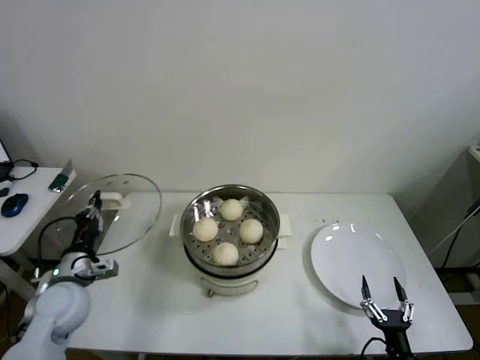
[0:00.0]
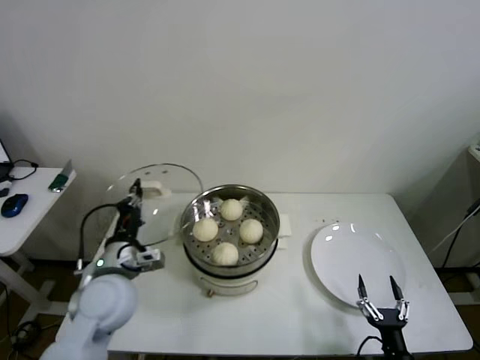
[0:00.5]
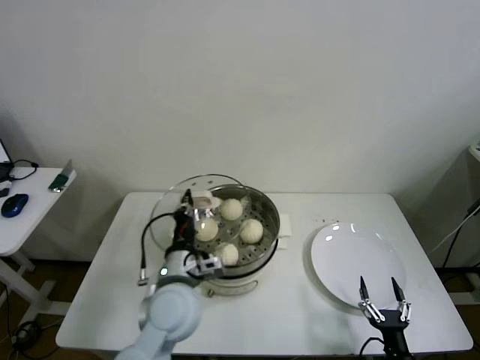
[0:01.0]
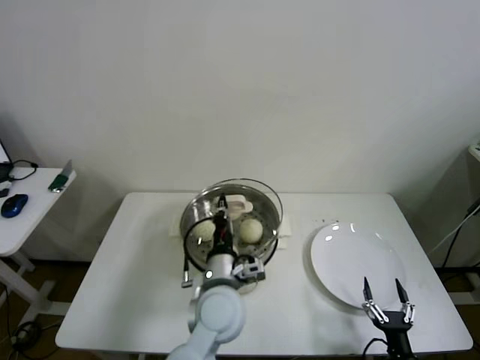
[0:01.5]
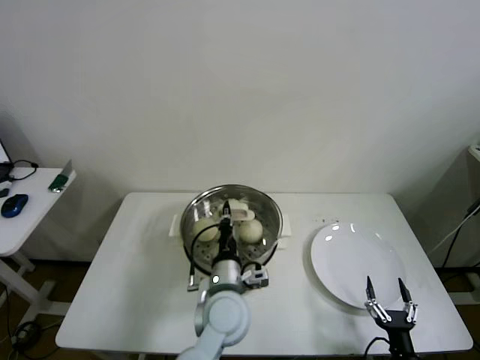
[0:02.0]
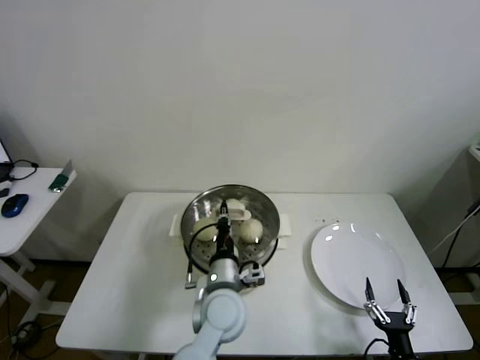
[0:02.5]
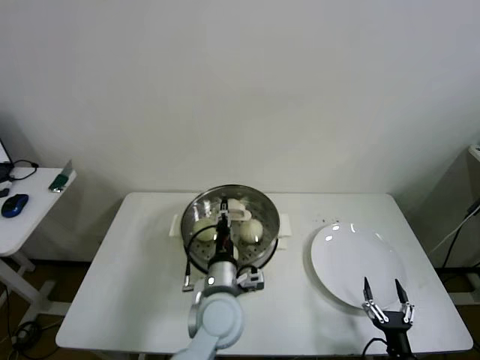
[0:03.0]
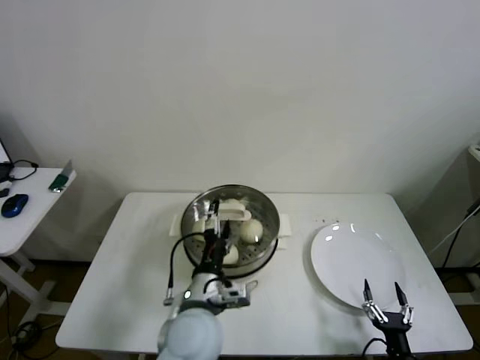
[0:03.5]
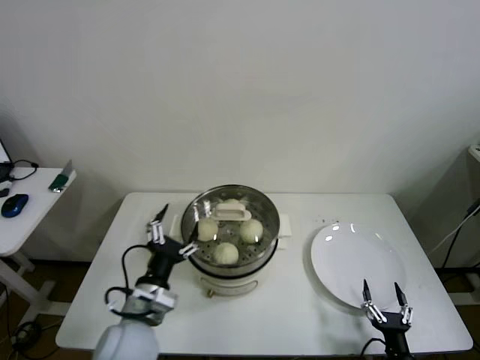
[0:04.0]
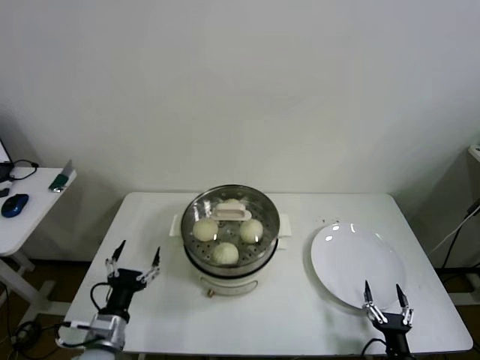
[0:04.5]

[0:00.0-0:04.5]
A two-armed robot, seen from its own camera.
Step, 0:00.0 to 0:03.0: Place the pot lid on the steamer with left gripper.
0:00.0 to 0:02.0: The left gripper travels to the right by roughly 35 cm.
0:02.0 to 0:04.5: The left gripper goes roughly 25 cm to the left, and opens its fingers.

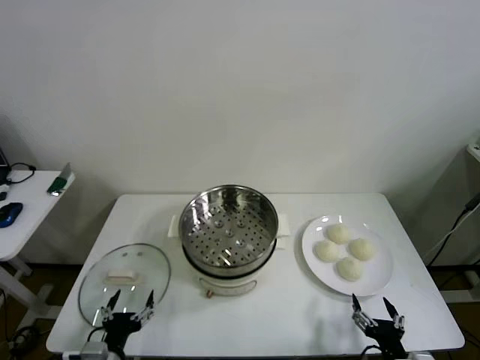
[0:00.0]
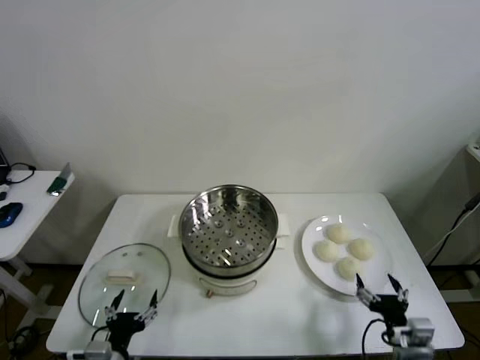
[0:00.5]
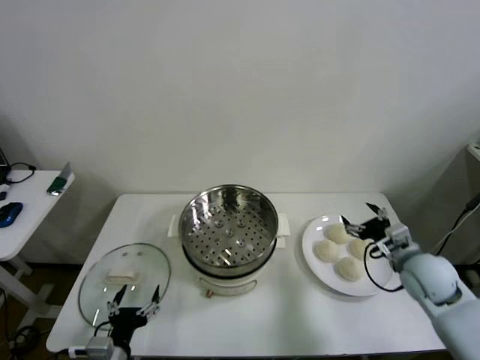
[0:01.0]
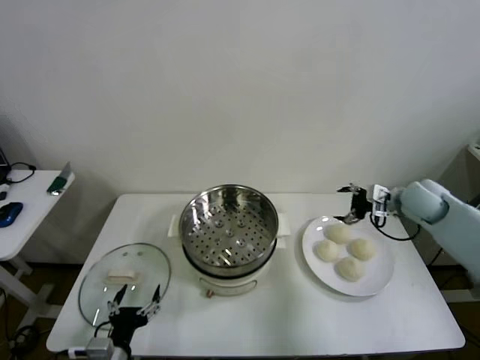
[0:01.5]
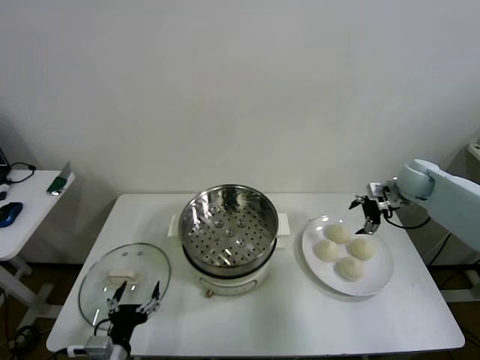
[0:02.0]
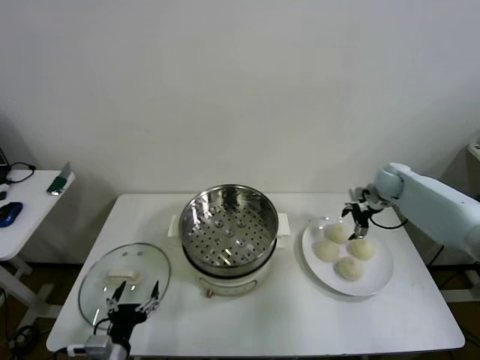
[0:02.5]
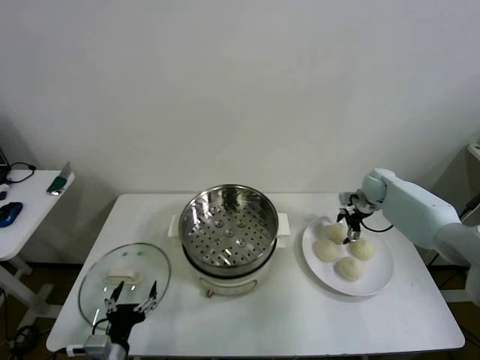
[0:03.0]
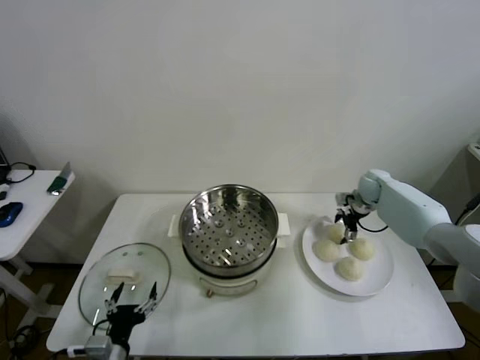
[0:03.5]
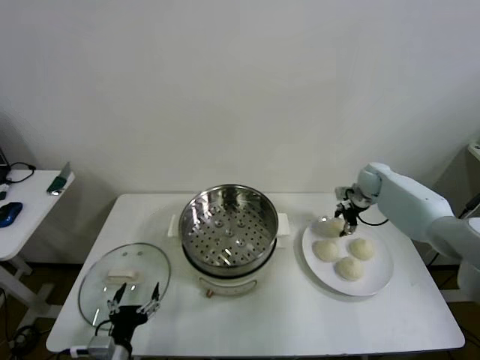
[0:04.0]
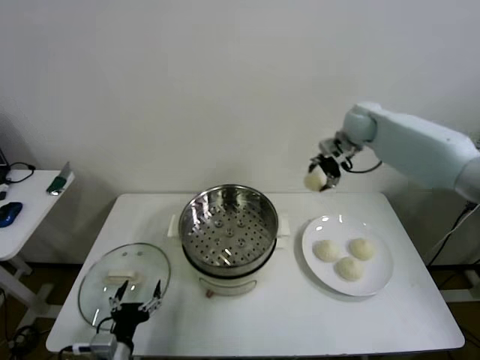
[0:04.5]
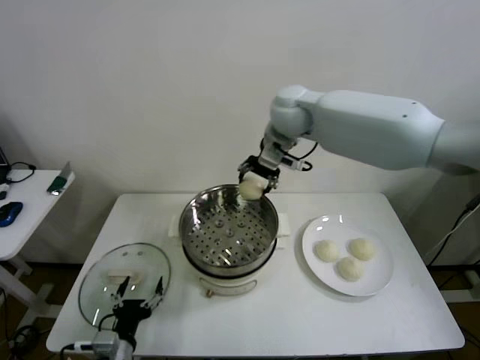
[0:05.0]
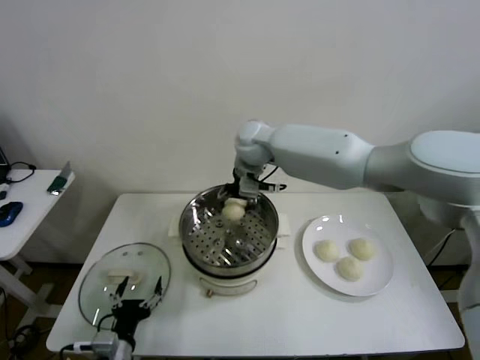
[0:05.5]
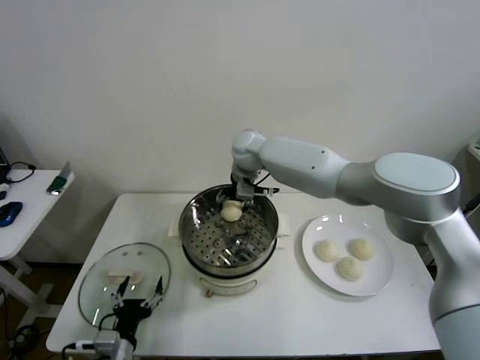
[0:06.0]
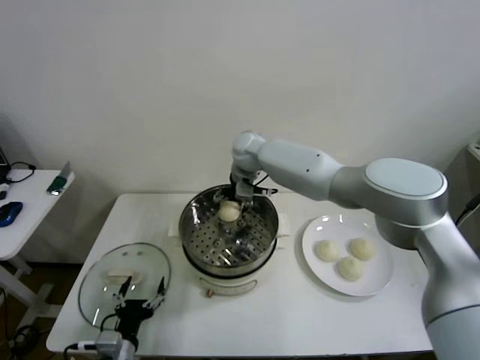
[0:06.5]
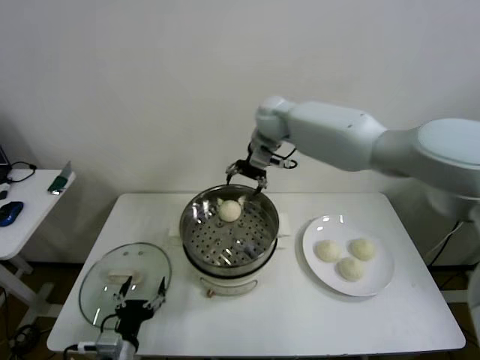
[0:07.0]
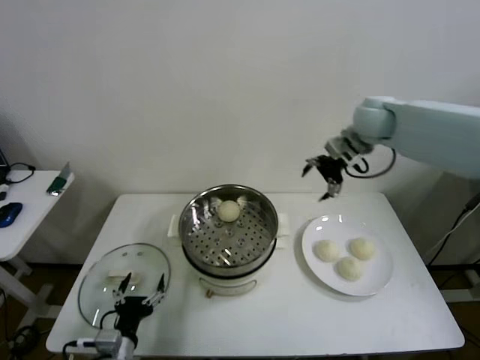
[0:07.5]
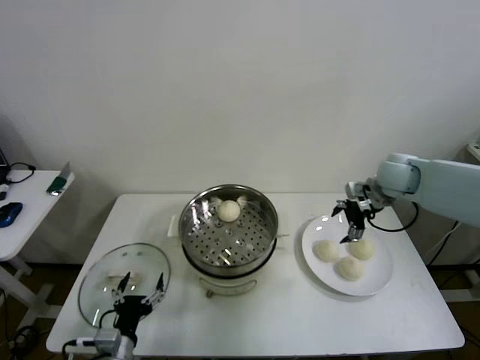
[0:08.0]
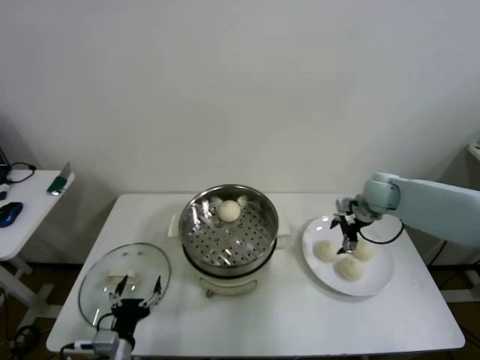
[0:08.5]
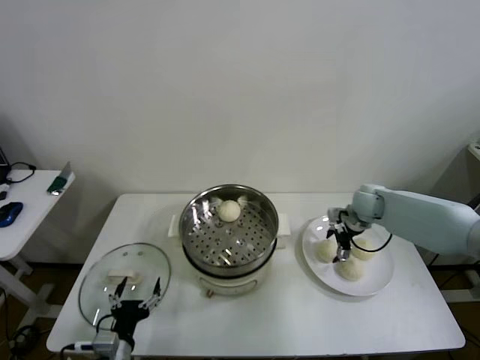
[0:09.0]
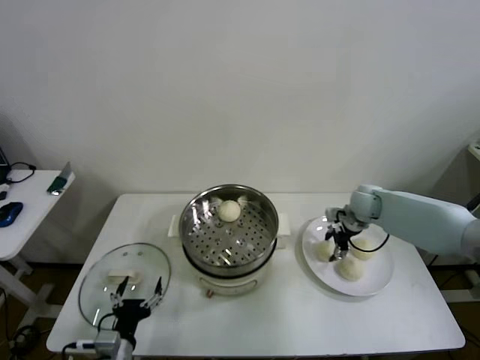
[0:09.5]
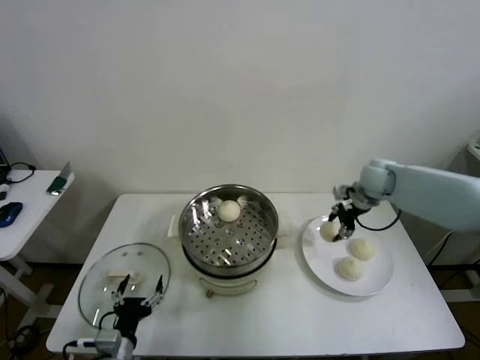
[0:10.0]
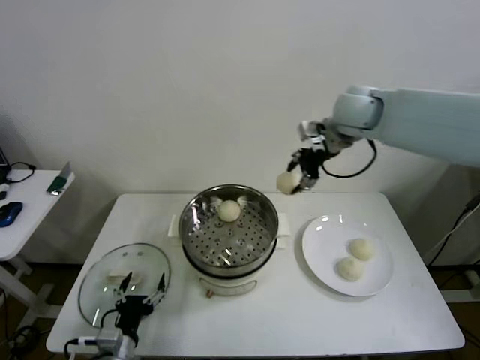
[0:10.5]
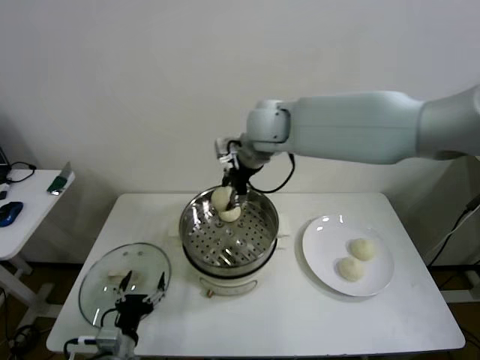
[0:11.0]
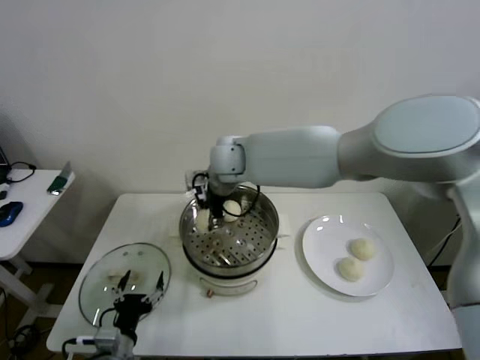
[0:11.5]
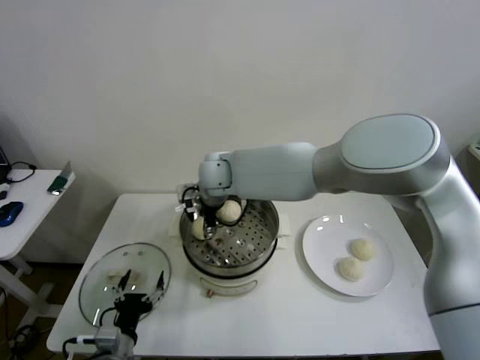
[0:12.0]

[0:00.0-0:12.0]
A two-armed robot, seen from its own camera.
Step, 0:00.0 to 0:03.5: Grasp the baozi in the plate with right gripper.
Step, 0:04.0 to 0:06.5: Place the baozi on the steamer with right gripper.
Step, 0:07.0 to 0:09.5: Grasp the baozi in the plate with right gripper.
0:02.0 to 0:04.0: The right gripper travels forward and to the left by approximately 10 cm, and closes its fingers.
0:04.0 to 0:06.0: The right gripper travels to the left by roughly 35 cm.
0:06.0 to 0:08.0: The right gripper heads to the right, covering about 35 cm, and opens up.
0:08.0 to 0:10.0: The right gripper moves roughly 10 cm downward and comes back, and closes up.
0:10.0 to 0:12.0: The right gripper travels to the left by roughly 40 cm.

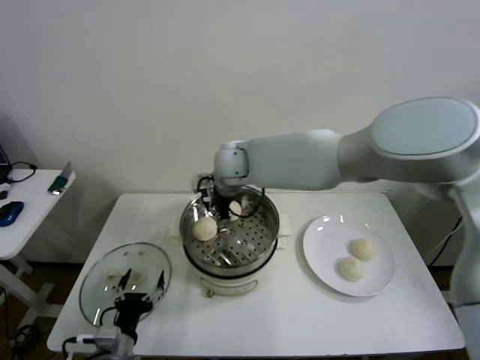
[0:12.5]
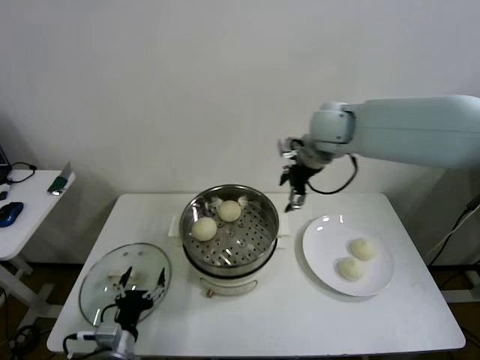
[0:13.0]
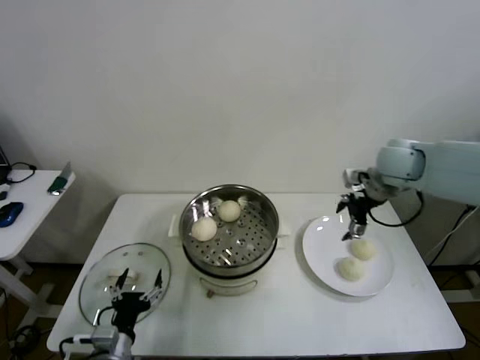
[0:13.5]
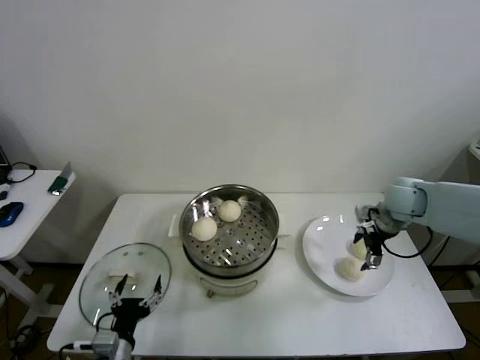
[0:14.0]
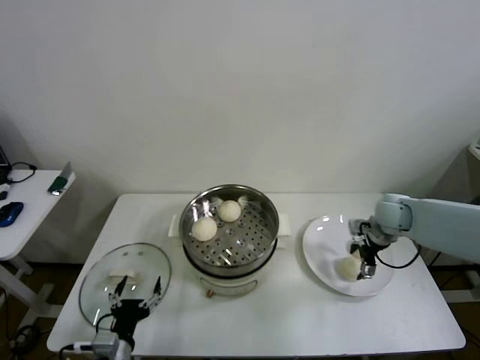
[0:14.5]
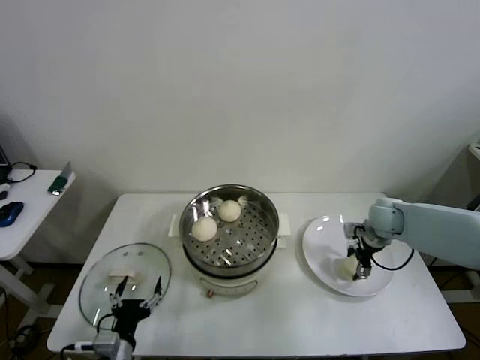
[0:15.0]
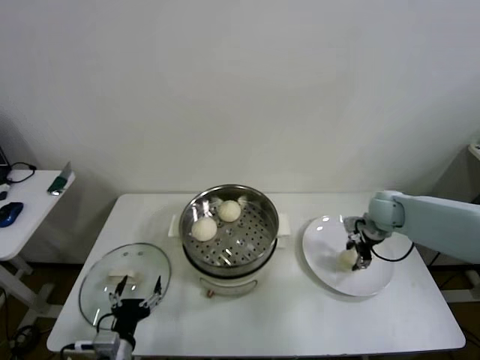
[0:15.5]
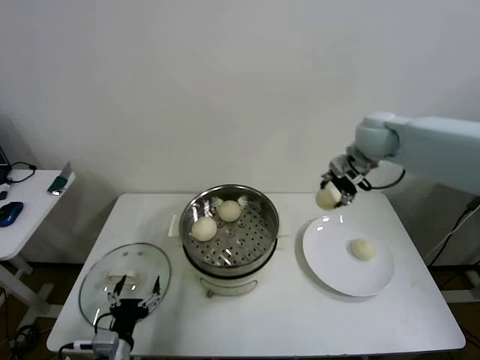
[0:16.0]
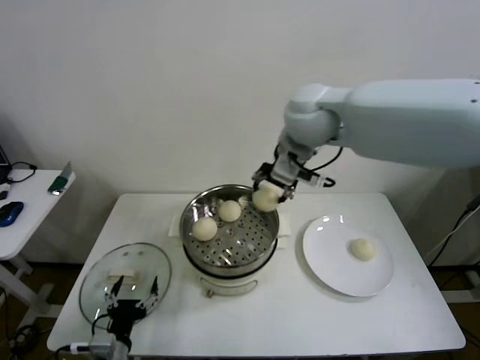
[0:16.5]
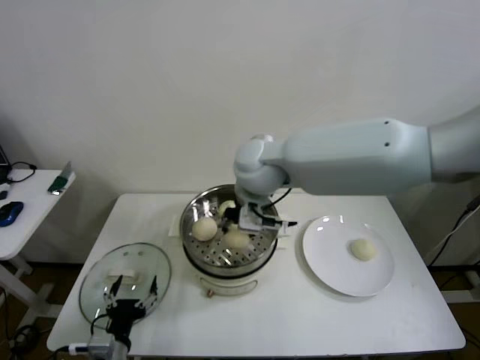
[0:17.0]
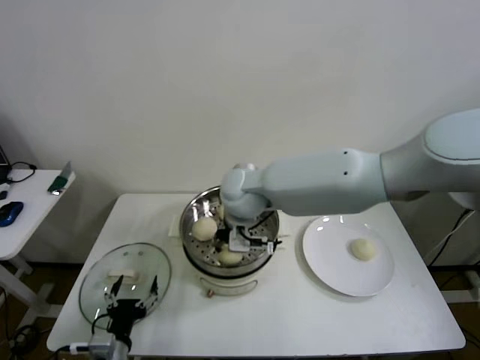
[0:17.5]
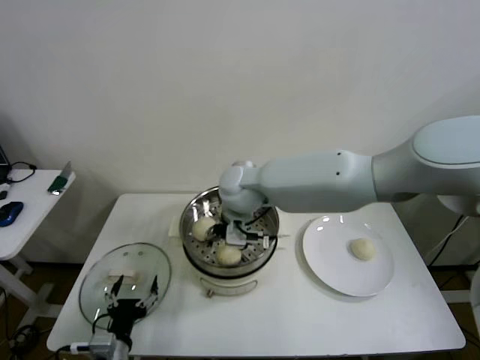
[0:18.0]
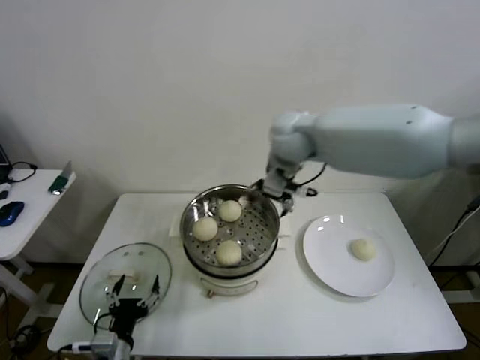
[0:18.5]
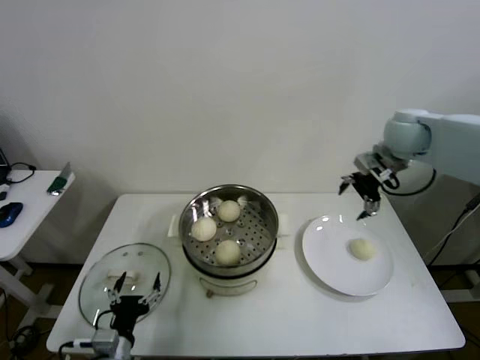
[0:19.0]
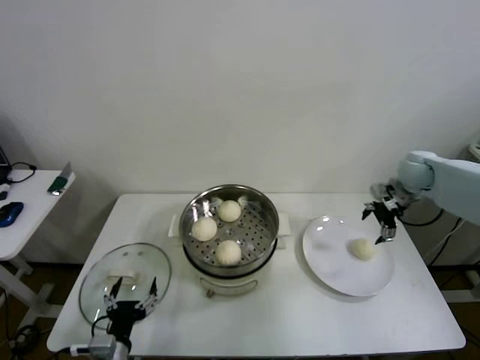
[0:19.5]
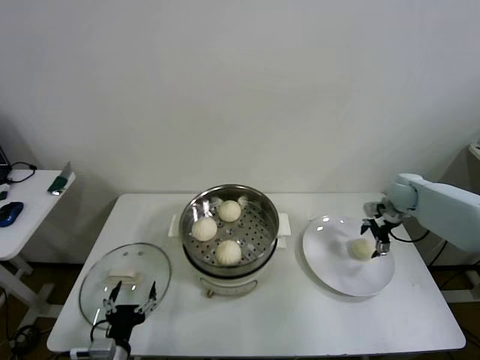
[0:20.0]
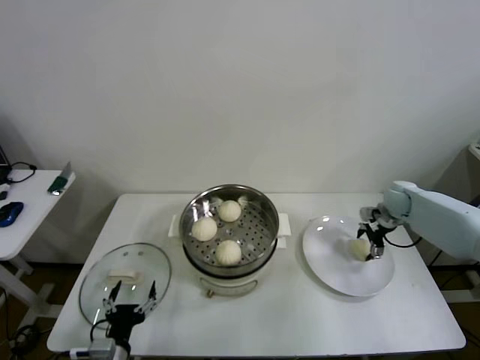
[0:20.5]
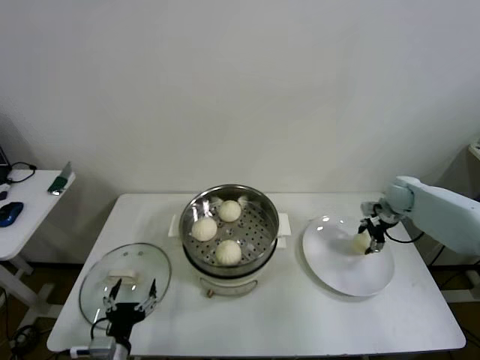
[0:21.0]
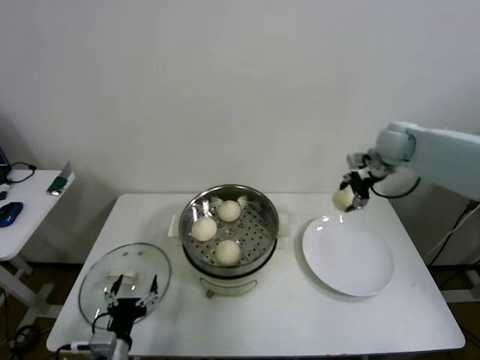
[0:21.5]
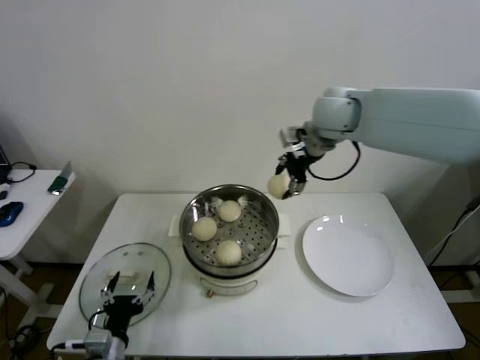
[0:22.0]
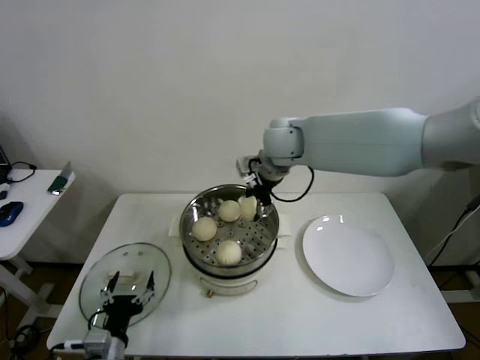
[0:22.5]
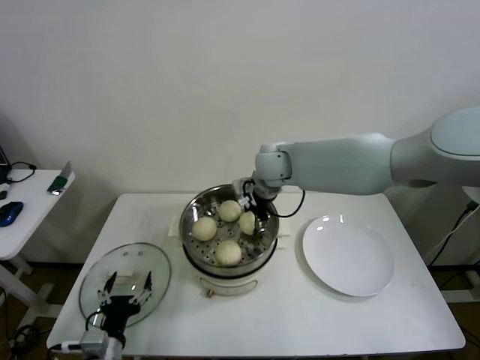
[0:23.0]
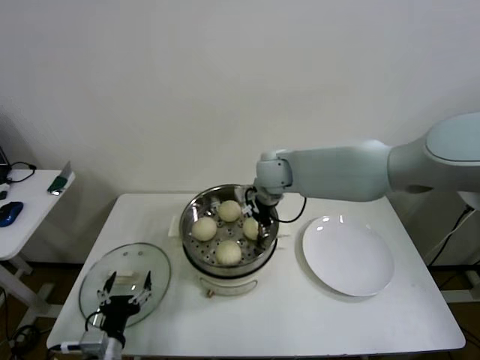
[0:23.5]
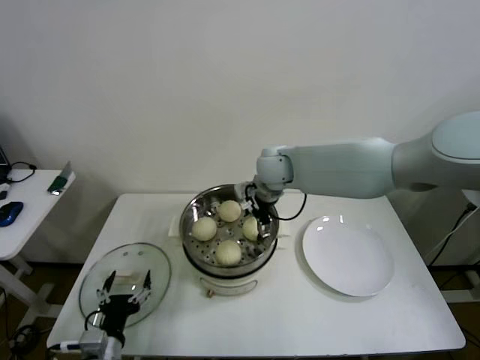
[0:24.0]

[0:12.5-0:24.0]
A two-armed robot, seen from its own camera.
Step, 0:12.5 to 0:15.0: Grasp the baozi in the plate with right gripper.
Step, 0:15.5 to 0:18.0: Place the baozi on the steamer with right gripper.
Step, 0:18.5 to 0:20.5: Grasp the baozi in the plate with right gripper.
Step, 0:21.0 to 0:24.0: Place the baozi on the steamer with right gripper.
0:12.5 to 0:14.5: The right gripper moves to the right and downward, approximately 40 cm.
0:14.5 to 0:16.5: The right gripper heads upward and to the left, covering about 40 cm, and closes up.
0:16.5 to 0:18.5: The right gripper reaches approximately 15 cm downward, then returns, and opens.
0:18.5 to 0:20.0: The right gripper goes roughly 40 cm to the right and downward.
0:20.0 to 0:22.0: The right gripper goes some 35 cm to the left and upward, and closes up.
0:22.0 to 0:24.0: The right gripper moves downward and to the left, some 15 cm, and opens.
